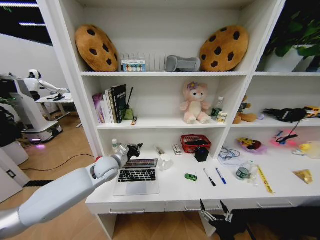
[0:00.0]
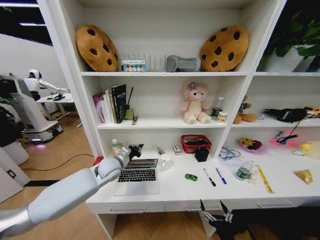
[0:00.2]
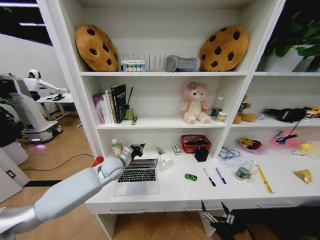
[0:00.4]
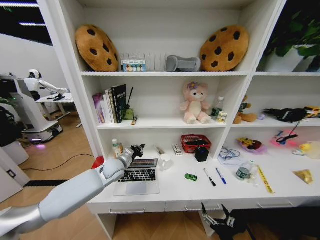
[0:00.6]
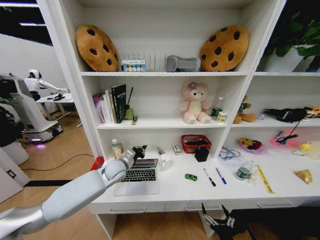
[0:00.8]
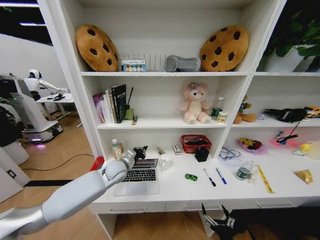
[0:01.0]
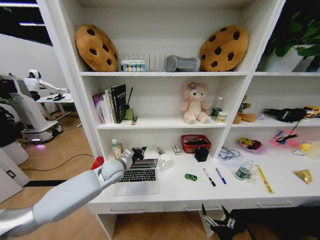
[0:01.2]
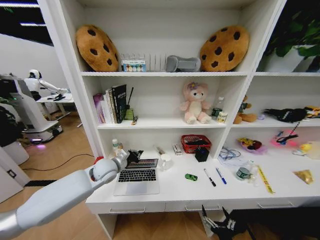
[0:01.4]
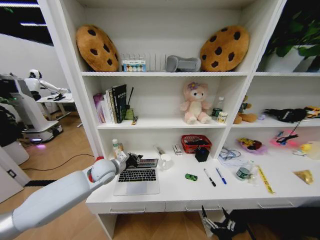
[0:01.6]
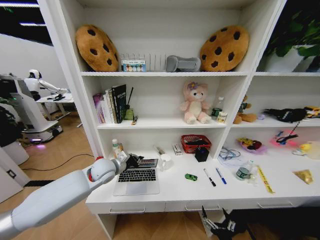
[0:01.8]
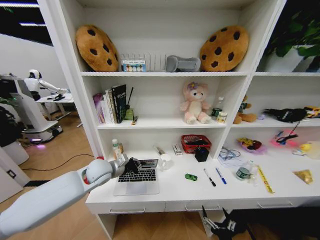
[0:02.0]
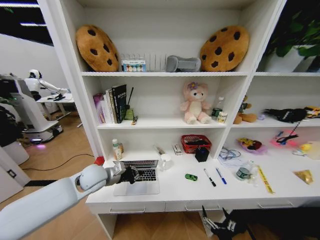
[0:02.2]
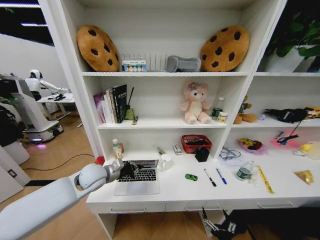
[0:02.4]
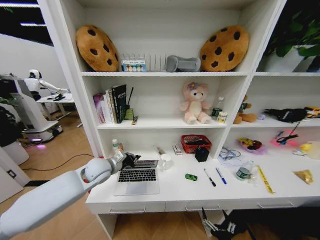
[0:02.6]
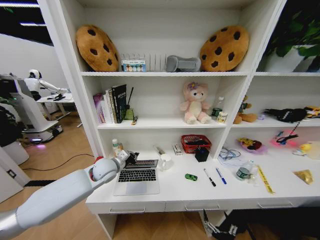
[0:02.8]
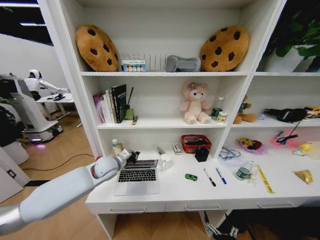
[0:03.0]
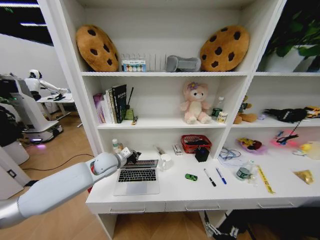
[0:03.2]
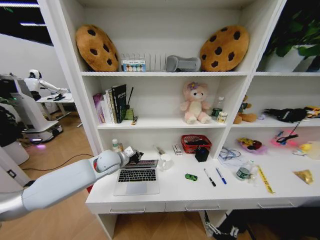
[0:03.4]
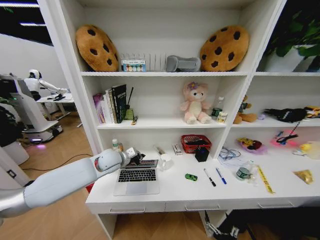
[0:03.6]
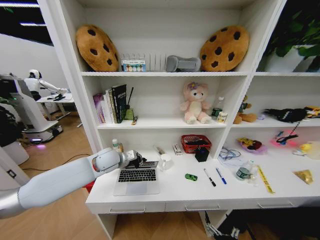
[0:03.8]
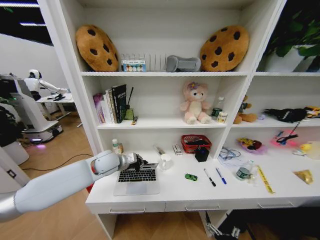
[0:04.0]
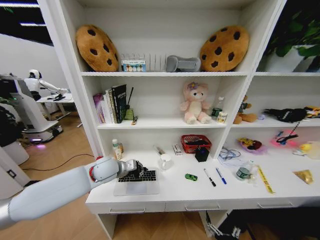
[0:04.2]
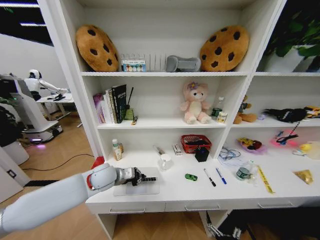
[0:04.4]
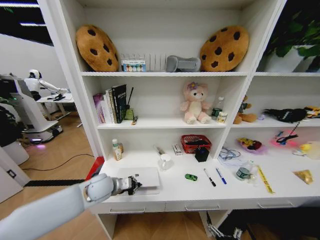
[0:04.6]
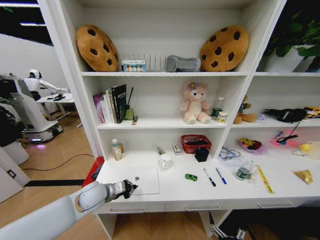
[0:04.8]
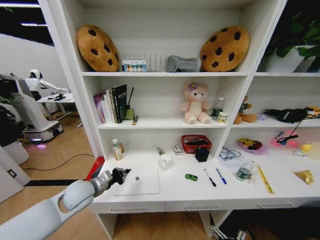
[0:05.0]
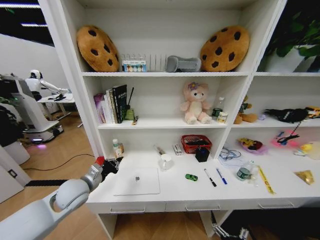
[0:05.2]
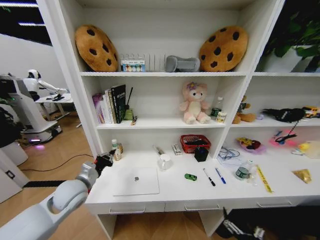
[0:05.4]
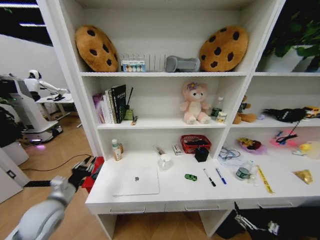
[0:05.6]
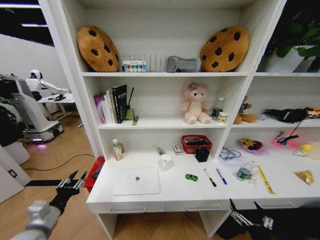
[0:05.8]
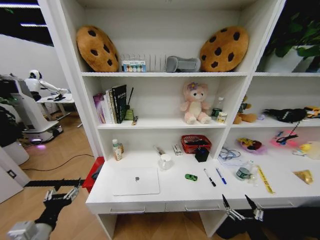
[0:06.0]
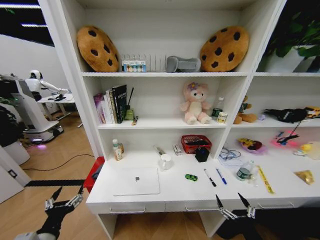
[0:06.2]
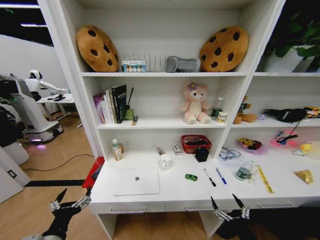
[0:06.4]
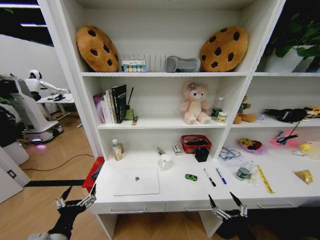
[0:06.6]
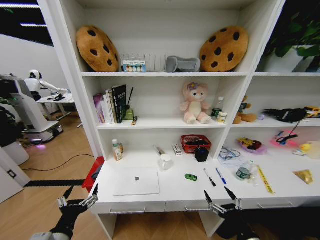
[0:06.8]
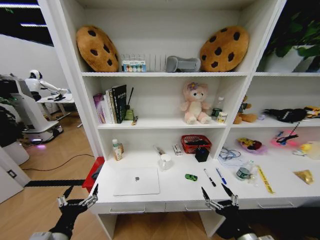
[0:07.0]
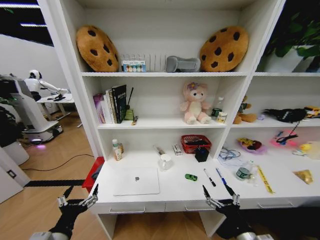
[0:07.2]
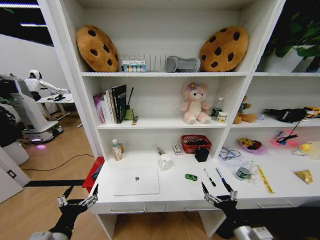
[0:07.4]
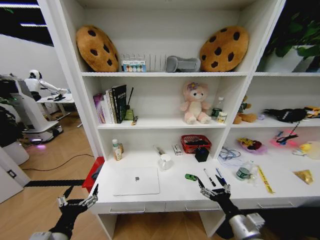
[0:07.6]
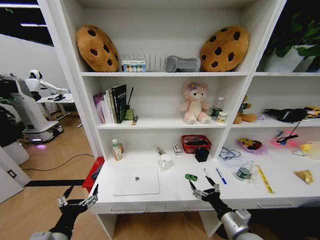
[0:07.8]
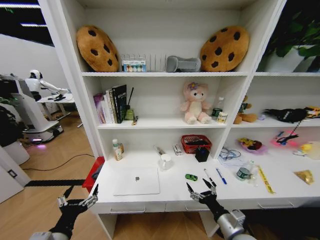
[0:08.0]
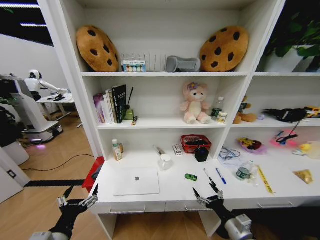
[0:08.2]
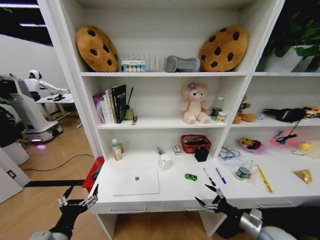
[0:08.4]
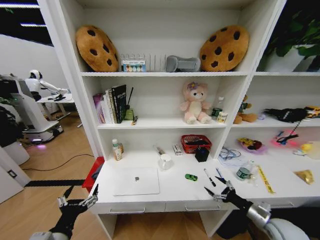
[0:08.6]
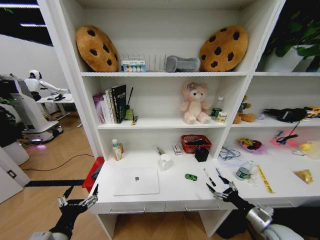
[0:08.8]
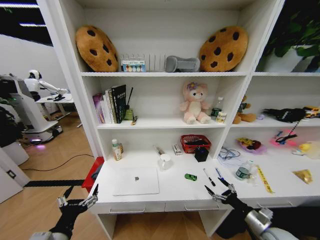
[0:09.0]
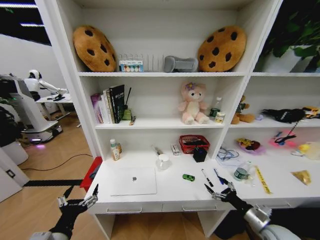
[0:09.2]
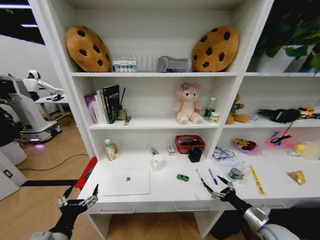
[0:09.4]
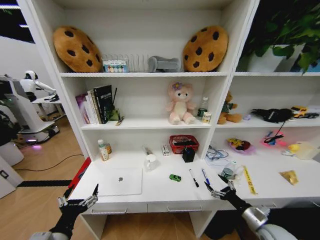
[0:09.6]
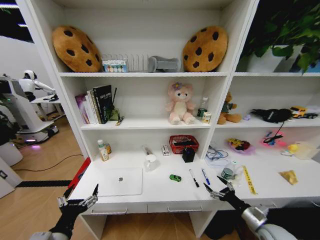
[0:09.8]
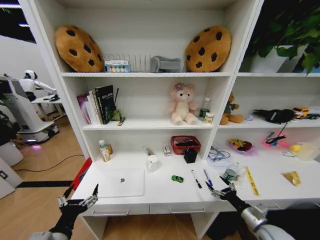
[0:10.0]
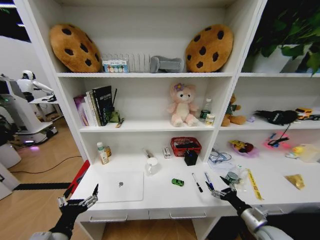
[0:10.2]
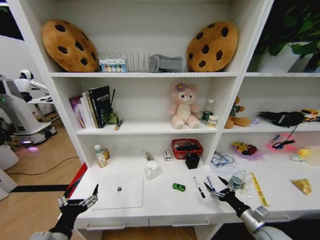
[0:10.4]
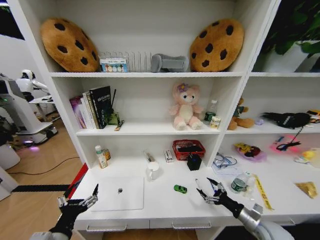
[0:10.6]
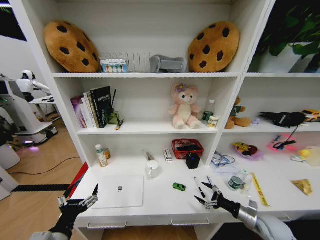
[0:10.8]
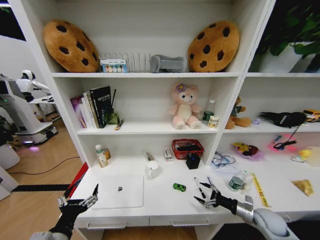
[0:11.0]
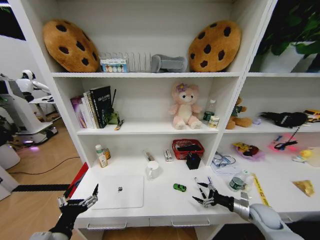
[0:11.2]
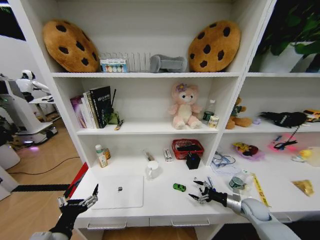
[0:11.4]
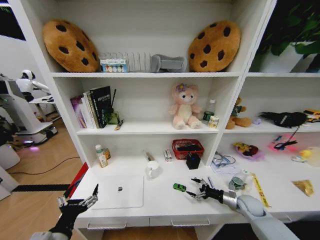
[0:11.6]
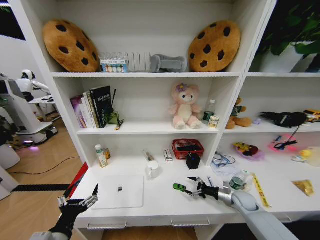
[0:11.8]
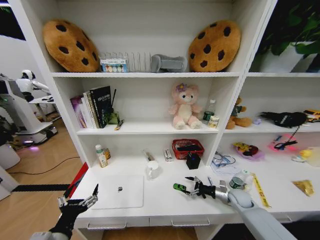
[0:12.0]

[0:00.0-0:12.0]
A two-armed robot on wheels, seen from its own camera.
Task of the whole recording: Organize the objects on the table.
0:00.0 to 0:01.6: The grippers move only a little.
0:04.4 to 0:06.0: The left gripper heads backward and to the left, covering roughly 30 cm, and opens its fingers; the right gripper heads upward and to the right, covering approximately 10 cm.
0:06.0 to 0:07.6: The left gripper heads to the right, covering some 5 cm, and opens up, while the right gripper heads forward, covering approximately 10 cm.
0:07.6 to 0:09.0: The right gripper goes some 15 cm to the right and downward.
0:10.4 to 0:12.0: The right gripper travels forward by approximately 15 cm.

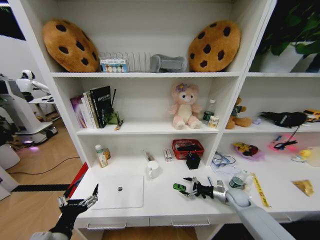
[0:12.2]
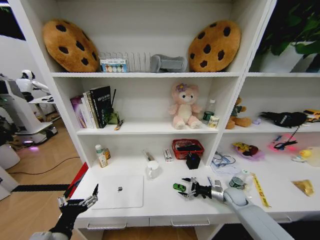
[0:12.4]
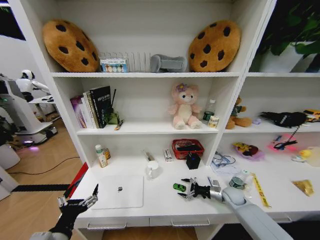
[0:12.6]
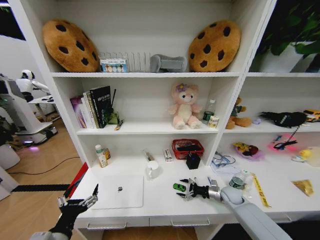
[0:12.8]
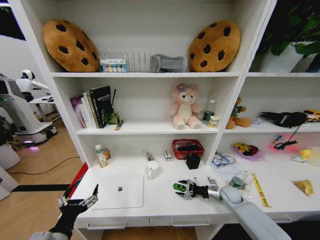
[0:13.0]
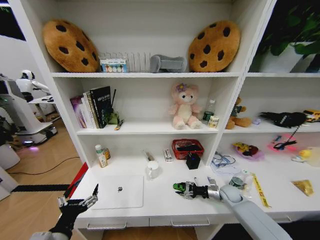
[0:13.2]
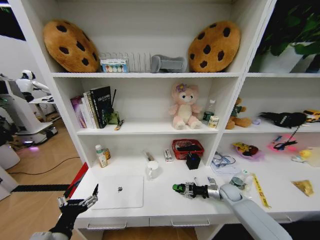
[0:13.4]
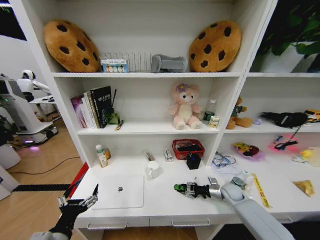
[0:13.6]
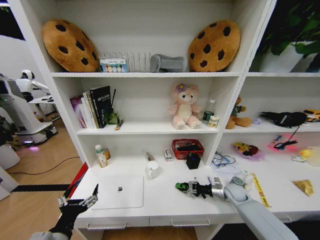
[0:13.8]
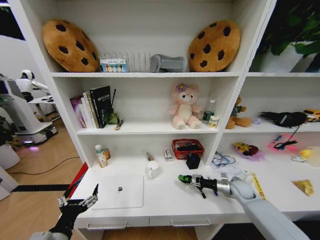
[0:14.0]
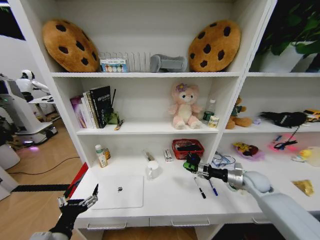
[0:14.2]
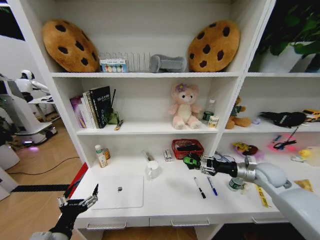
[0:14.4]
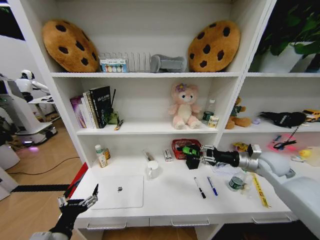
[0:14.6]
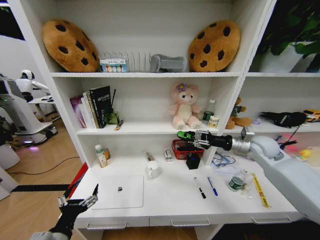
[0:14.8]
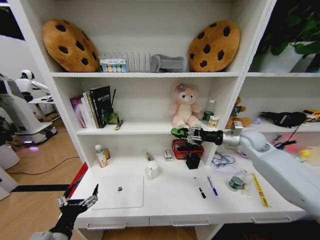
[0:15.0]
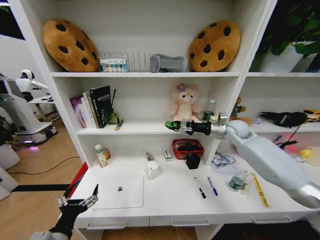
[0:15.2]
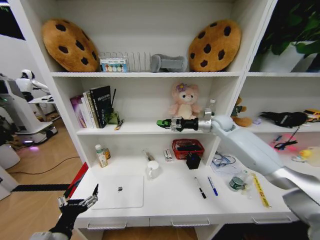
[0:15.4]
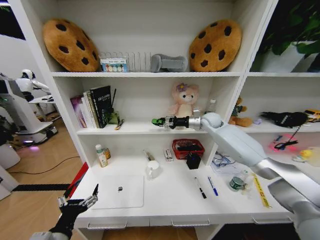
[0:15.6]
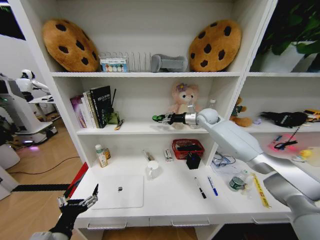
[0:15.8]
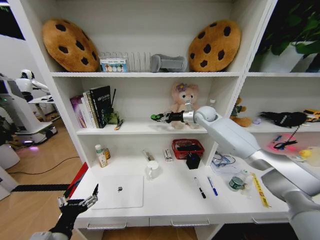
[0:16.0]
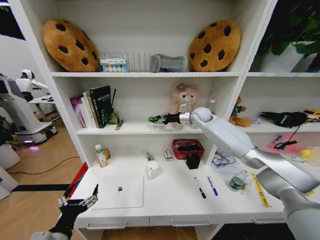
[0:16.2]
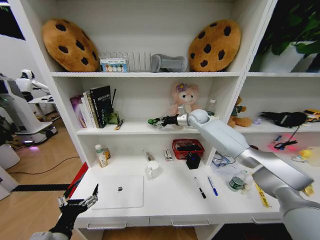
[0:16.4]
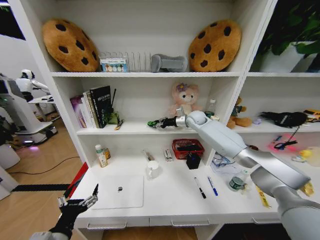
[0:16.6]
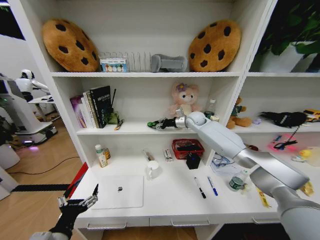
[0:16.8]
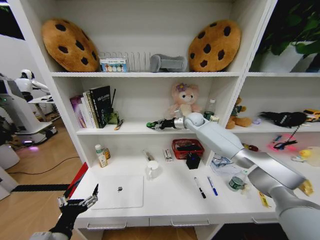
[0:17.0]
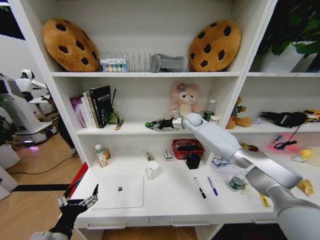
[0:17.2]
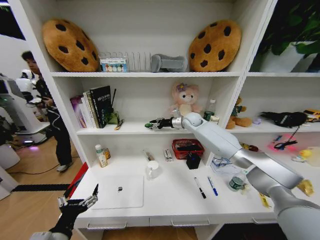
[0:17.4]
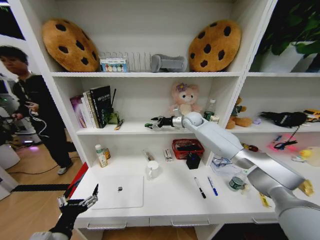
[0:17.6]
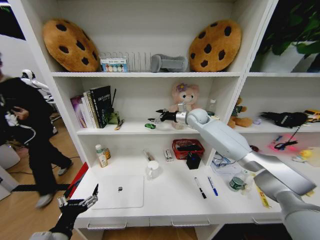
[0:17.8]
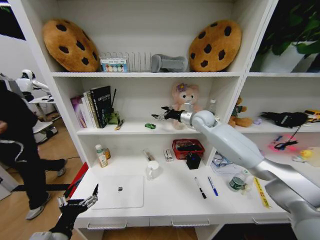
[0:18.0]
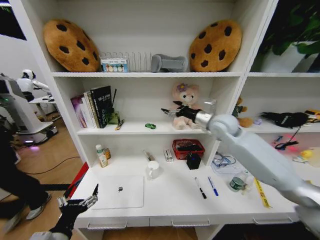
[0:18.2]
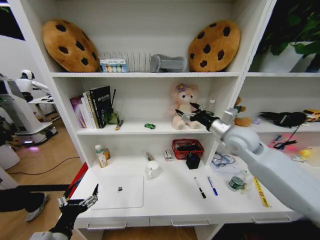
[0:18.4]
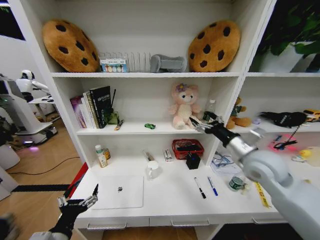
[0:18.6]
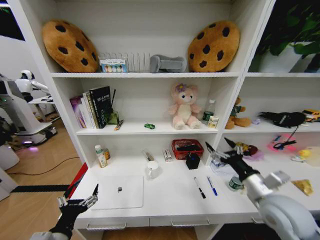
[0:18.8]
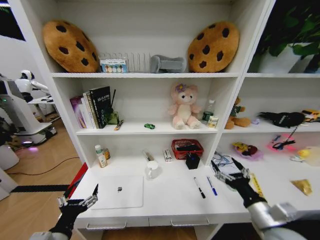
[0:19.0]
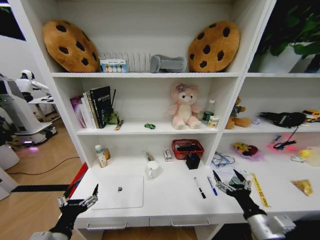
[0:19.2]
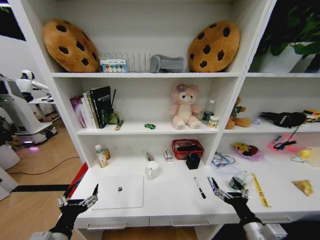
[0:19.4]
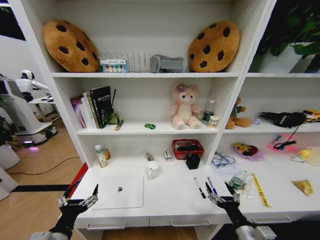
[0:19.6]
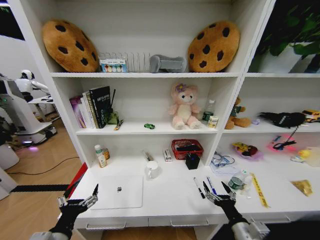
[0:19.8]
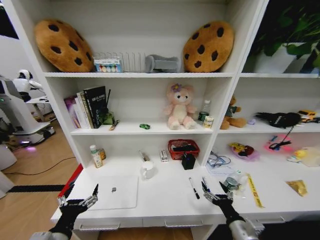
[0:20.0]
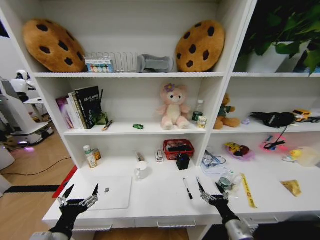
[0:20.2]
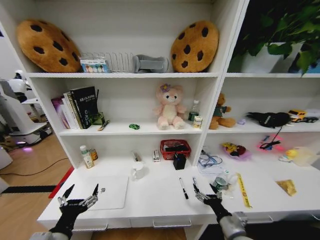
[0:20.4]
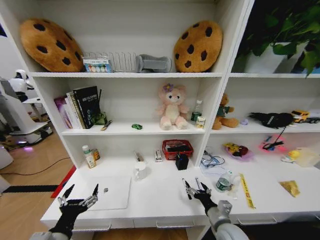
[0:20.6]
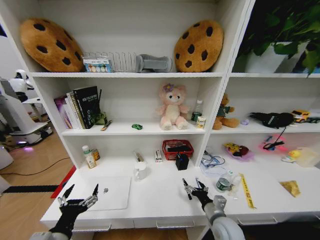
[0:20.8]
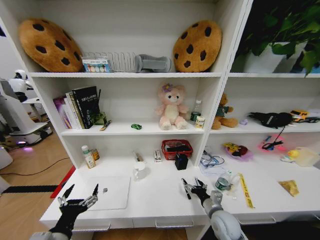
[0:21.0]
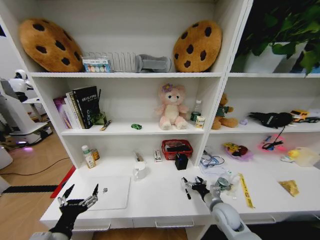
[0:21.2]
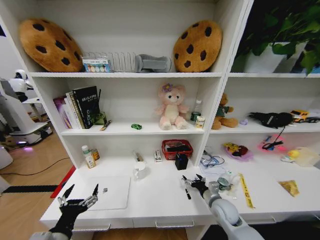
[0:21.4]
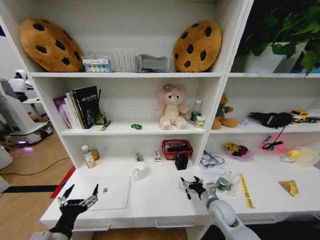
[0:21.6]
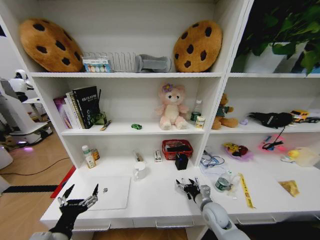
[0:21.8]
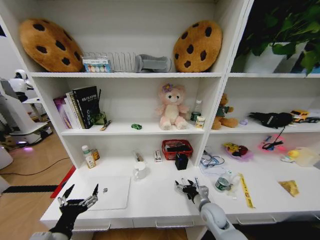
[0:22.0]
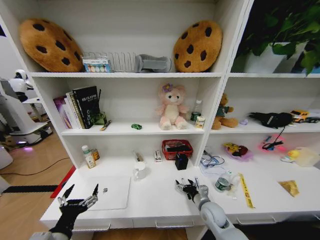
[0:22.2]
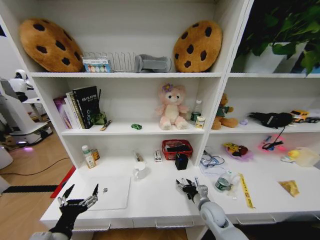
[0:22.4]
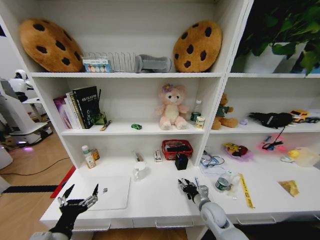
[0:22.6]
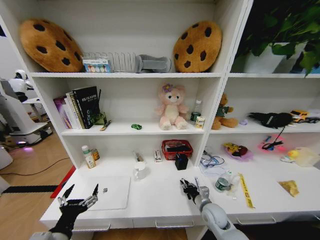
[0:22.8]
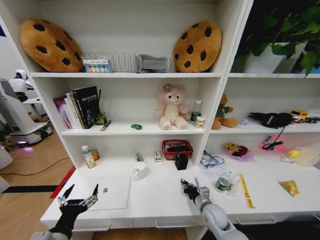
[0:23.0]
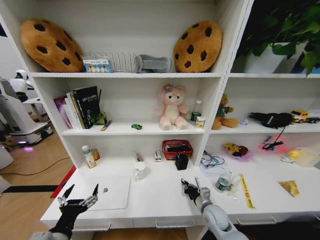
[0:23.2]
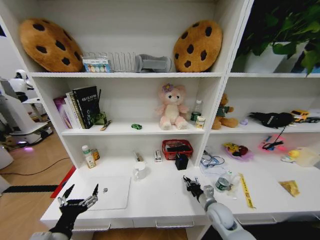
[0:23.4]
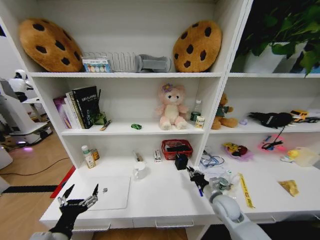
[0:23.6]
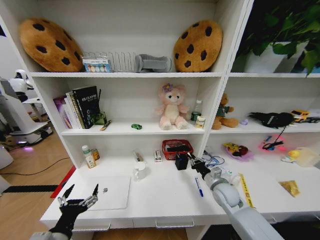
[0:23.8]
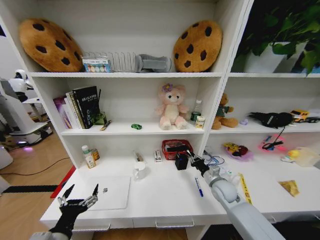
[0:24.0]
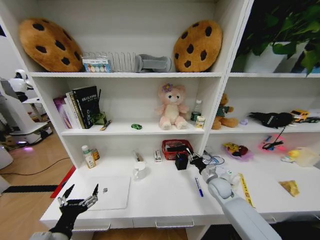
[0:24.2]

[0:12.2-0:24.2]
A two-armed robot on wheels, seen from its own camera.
Task of the whole recording: Organize the objects on the table.
0:12.2 to 0:13.8: The right gripper closes up.
0:13.8 to 0:15.2: The right gripper shifts approximately 30 cm upward.
0:15.2 to 0:16.6: The right gripper shifts some 20 cm to the left and forward.
0:16.6 to 0:18.2: The right gripper goes approximately 15 cm backward, and opens.
0:18.2 to 0:19.8: The right gripper shifts about 40 cm backward and downward.
0:19.8 to 0:21.2: The right gripper heads forward, covering about 15 cm.
0:21.2 to 0:22.6: The right gripper closes up.
0:22.6 to 0:24.2: The right gripper travels forward, to the right and upward by approximately 10 cm, and closes its fingers.
